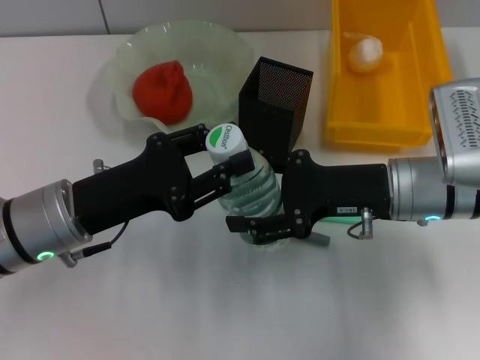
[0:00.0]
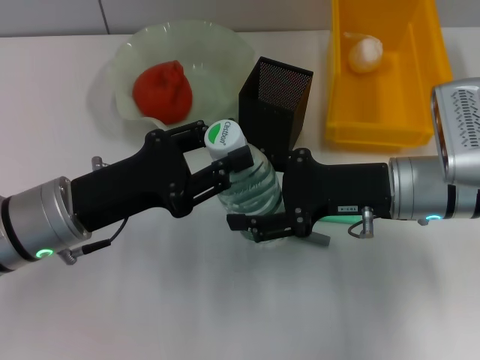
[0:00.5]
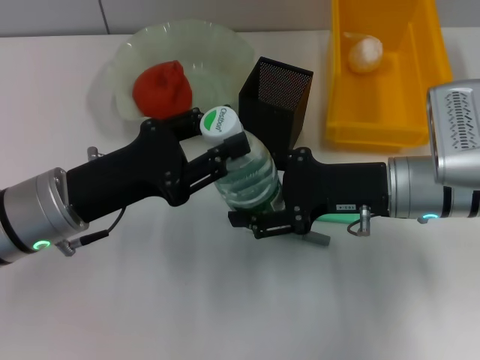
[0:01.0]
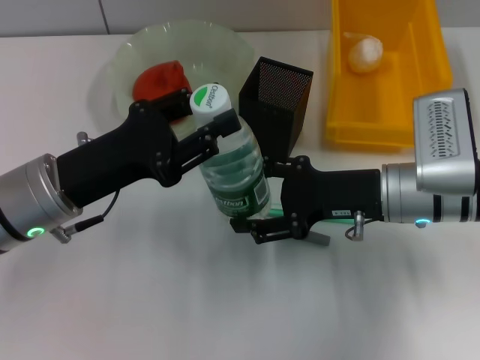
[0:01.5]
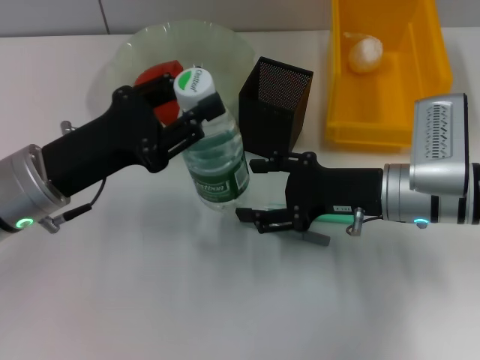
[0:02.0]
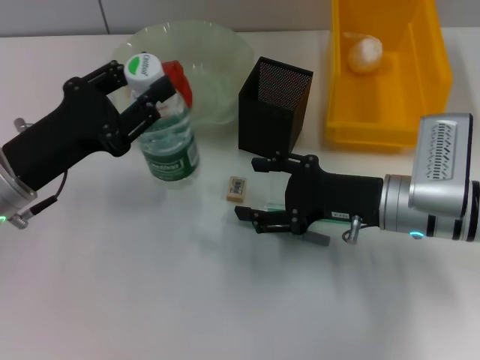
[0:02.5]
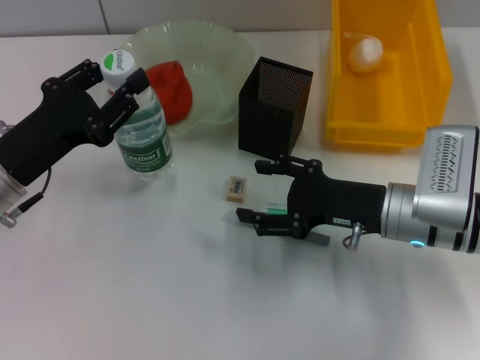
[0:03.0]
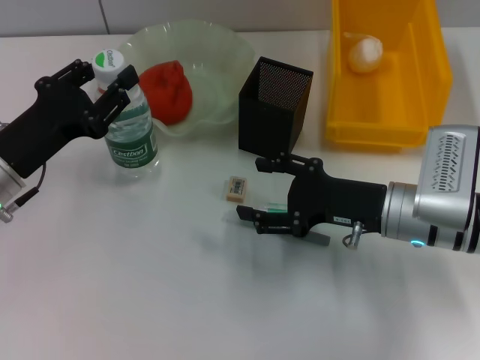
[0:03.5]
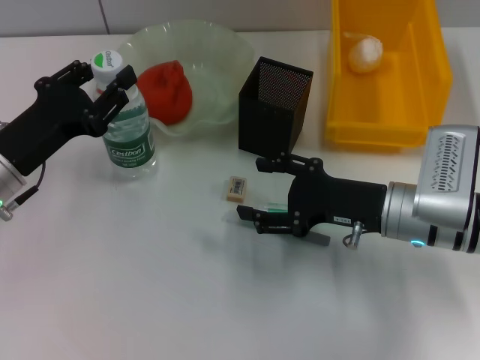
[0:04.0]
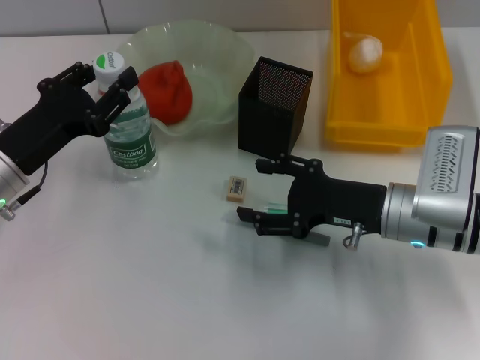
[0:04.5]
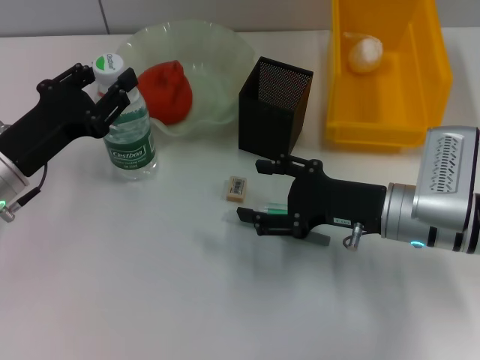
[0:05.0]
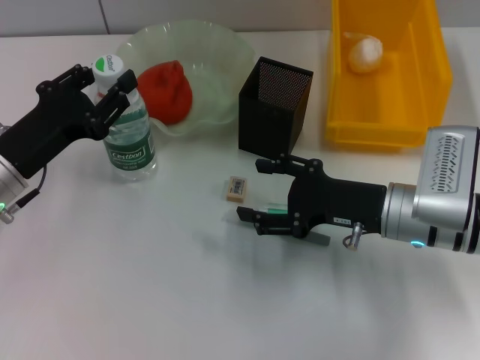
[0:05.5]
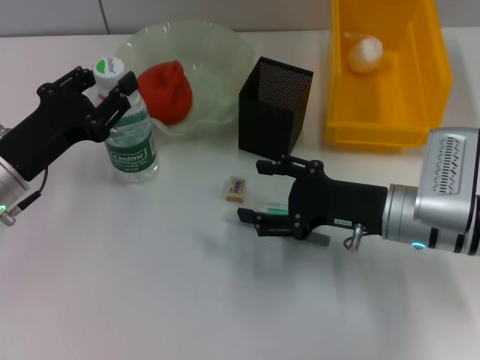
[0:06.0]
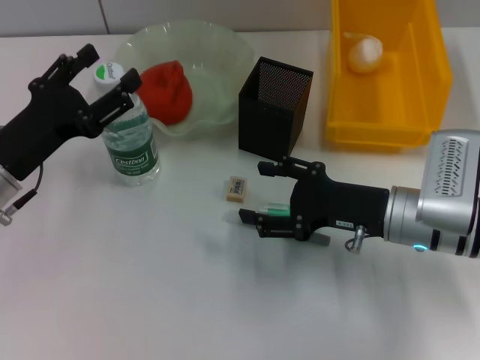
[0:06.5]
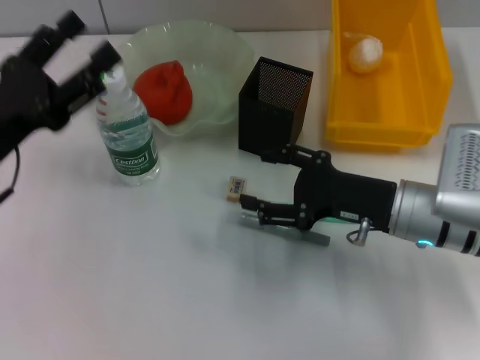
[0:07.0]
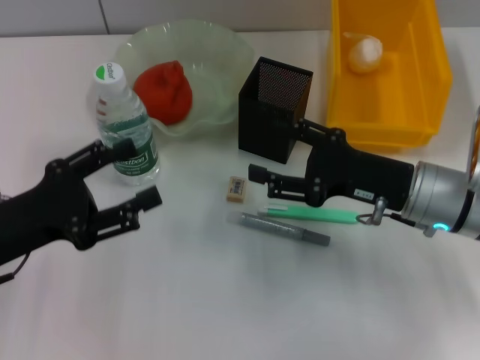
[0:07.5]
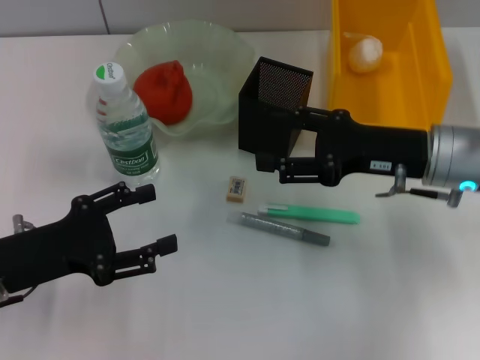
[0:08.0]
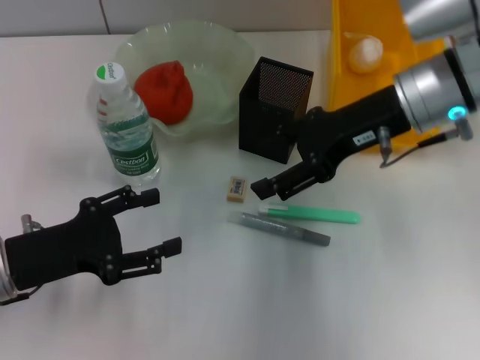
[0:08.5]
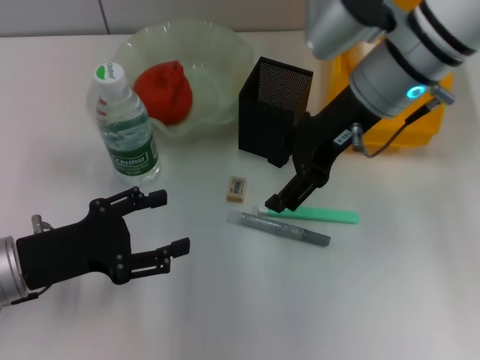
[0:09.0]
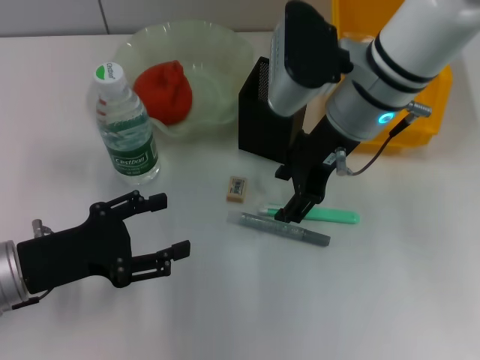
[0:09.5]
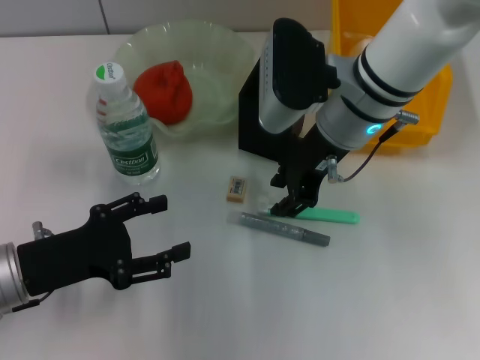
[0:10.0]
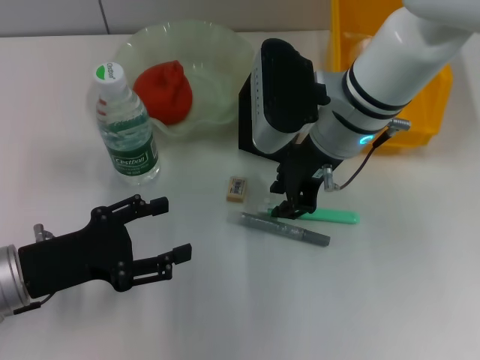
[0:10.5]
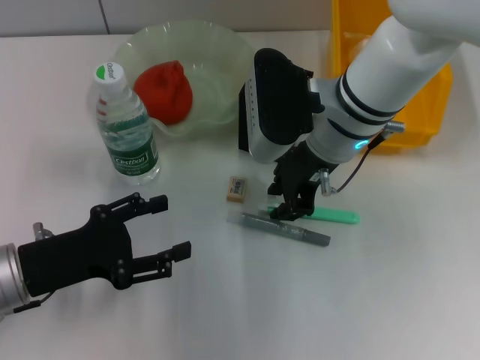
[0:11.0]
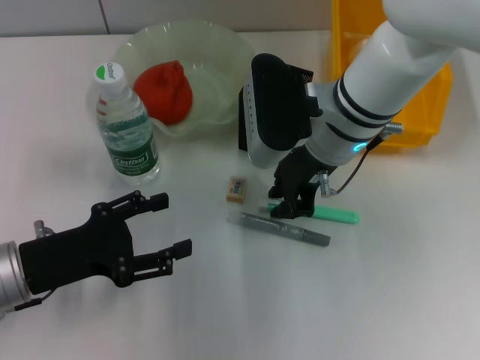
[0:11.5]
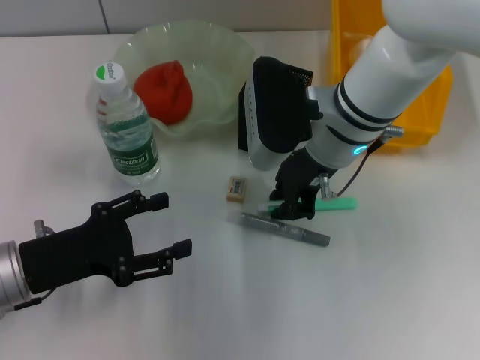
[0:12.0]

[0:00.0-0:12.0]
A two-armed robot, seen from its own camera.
Step, 0:02.0 to 0:06.5: Place the water bottle on the table with the left hand.
0:02.0 to 0:04.0: The left gripper moves roughly 5 cm.
0:04.0 to 0:06.0: Both grippers stay put.
0:06.0 to 0:08.0: The right gripper shifts about 5 cm upward; the left gripper heads backward, covering approximately 5 cm, and opens up.
0:08.0 to 0:10.0: The right gripper shifts about 15 cm to the left and forward, and closes its fingers.
0:10.0 to 0:12.0: The right gripper closes its fingers.

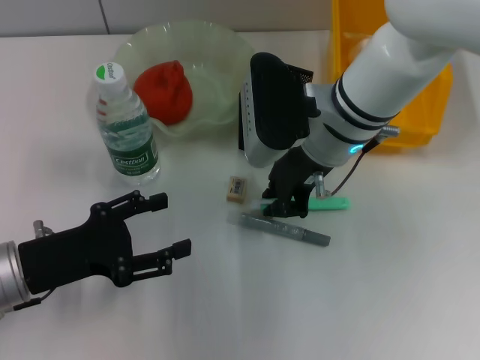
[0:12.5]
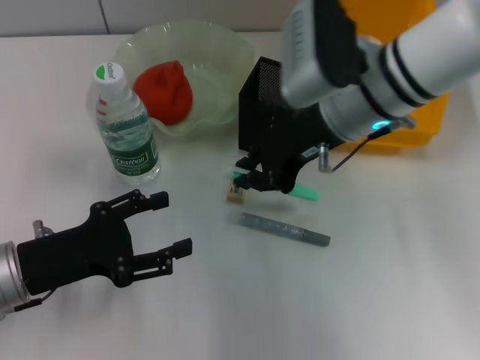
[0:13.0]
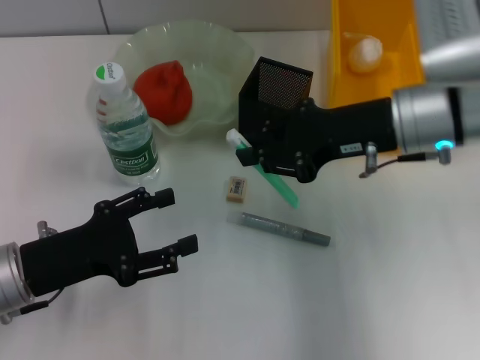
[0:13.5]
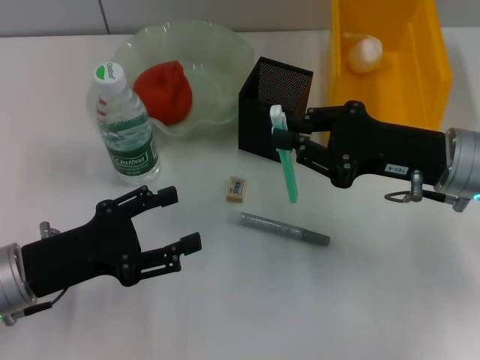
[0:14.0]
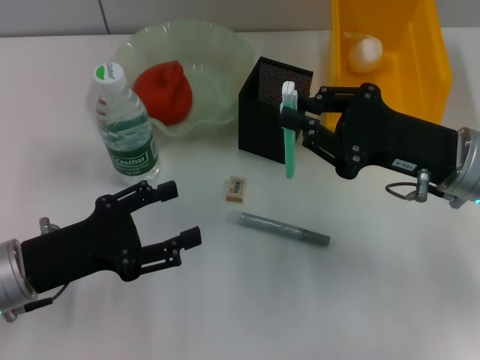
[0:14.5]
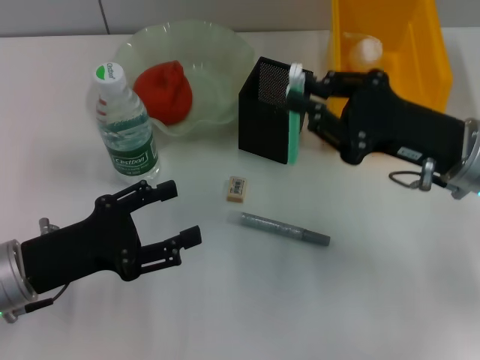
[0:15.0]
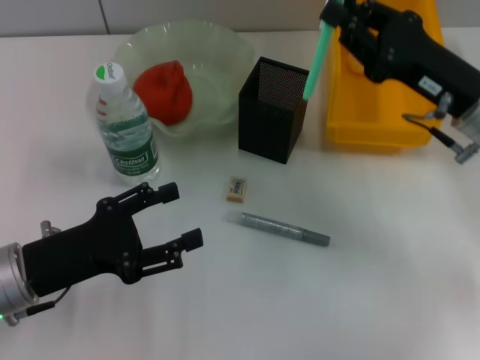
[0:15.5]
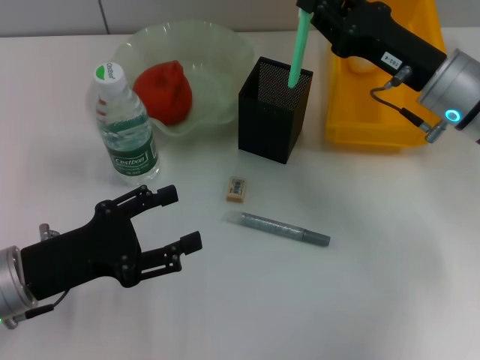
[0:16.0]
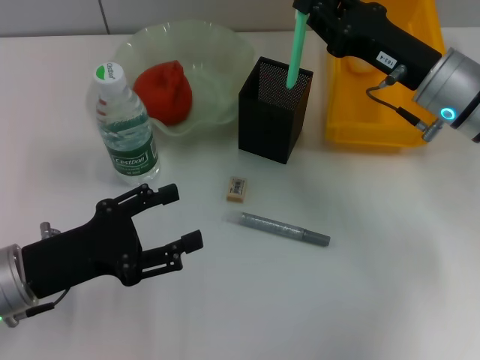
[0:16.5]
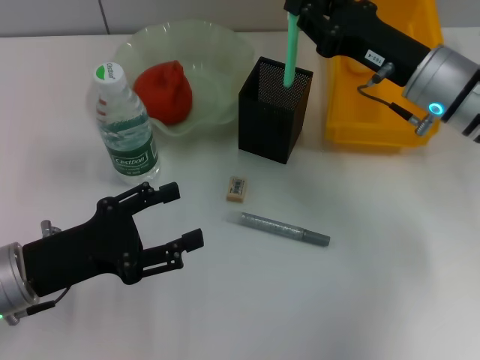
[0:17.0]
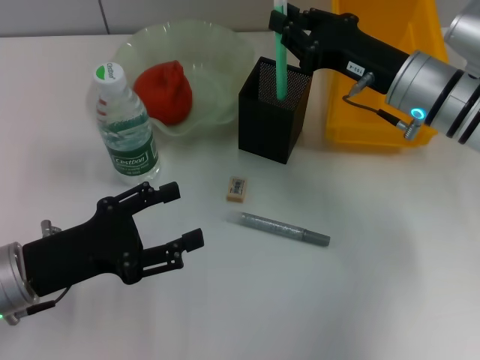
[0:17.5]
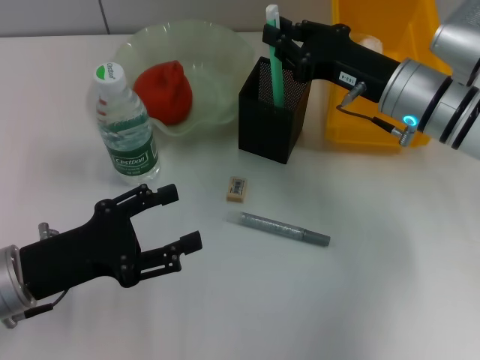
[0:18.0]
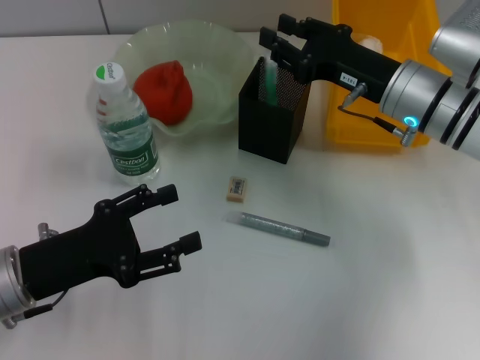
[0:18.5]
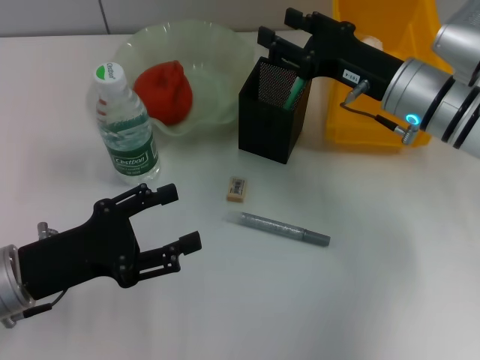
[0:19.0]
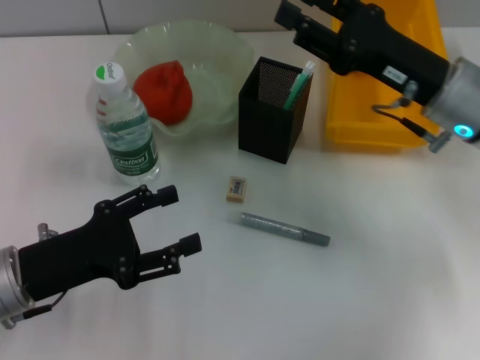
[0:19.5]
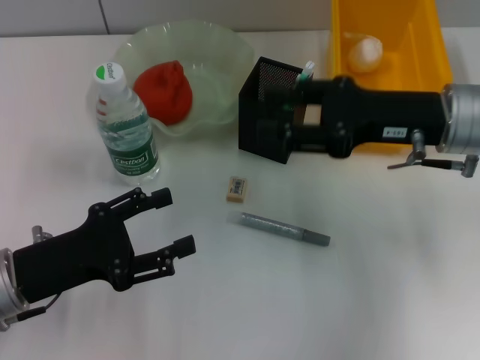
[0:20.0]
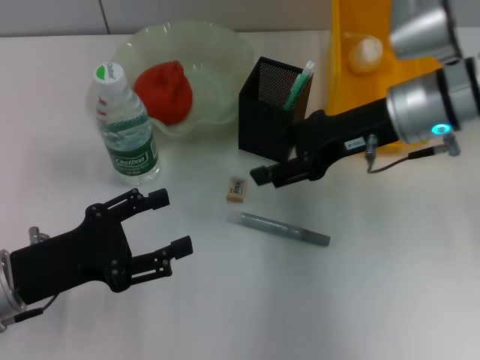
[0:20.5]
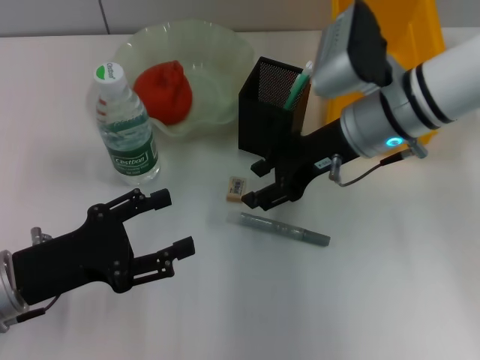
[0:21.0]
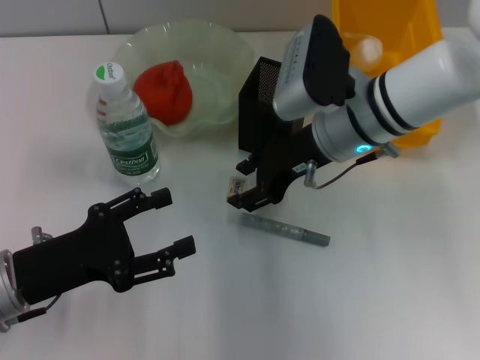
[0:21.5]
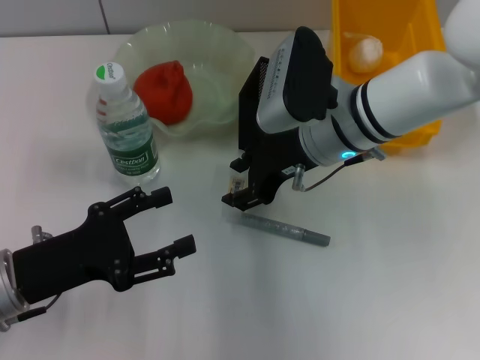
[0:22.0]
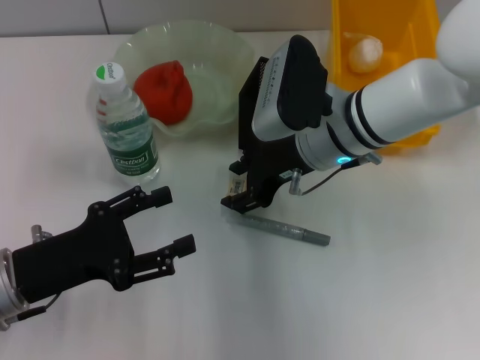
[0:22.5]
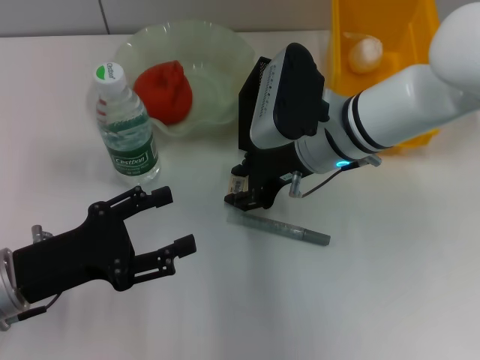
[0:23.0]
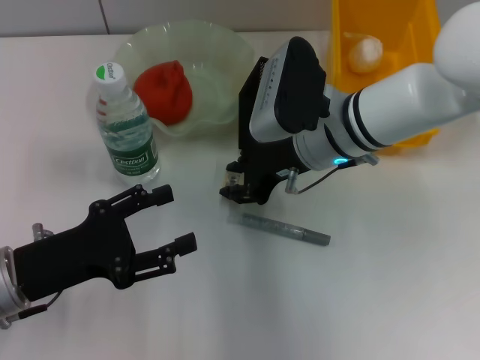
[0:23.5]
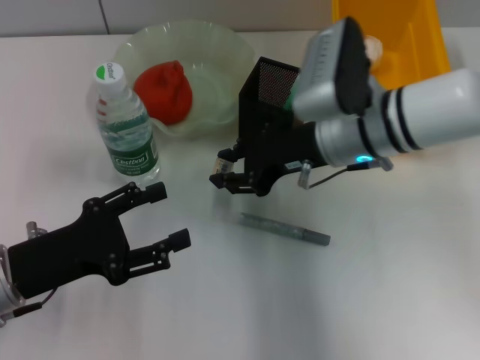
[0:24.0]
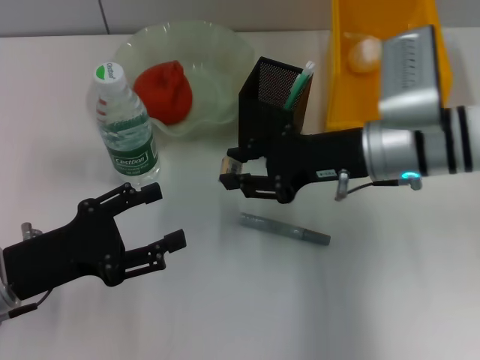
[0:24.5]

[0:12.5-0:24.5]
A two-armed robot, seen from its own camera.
Step, 0:12.5 to 0:18.5: Place the blue utility knife into the pen holder with the right hand.
Step, 0:19.0 to 0:23.0: Grab the eraser with the right hand.
0:12.5 to 0:14.5: The right gripper moves to the right and backward, some 15 cm.
0:14.5 to 0:16.5: The right gripper shifts about 5 cm forward.
0:16.5 to 0:18.5: The grippers stay close to where they were, moving slightly.
0:18.5 to 0:20.5: The right gripper opens up.
0:20.5 to 0:22.5: The right gripper shifts about 10 cm to the left.
0:22.5 to 0:24.5: The right gripper shifts roughly 5 cm to the right.

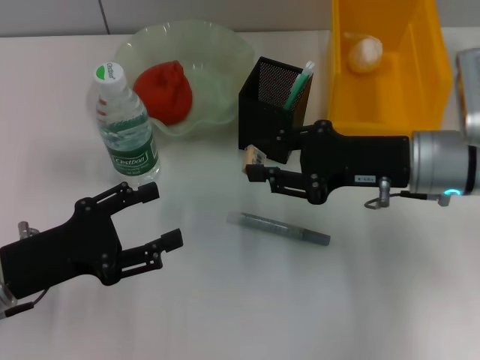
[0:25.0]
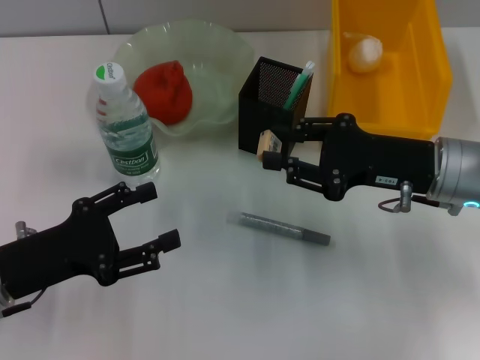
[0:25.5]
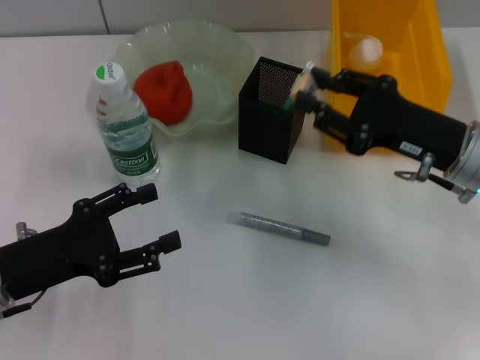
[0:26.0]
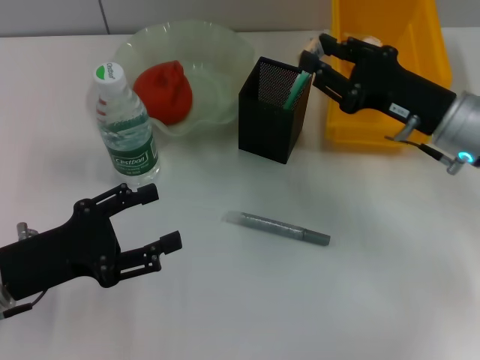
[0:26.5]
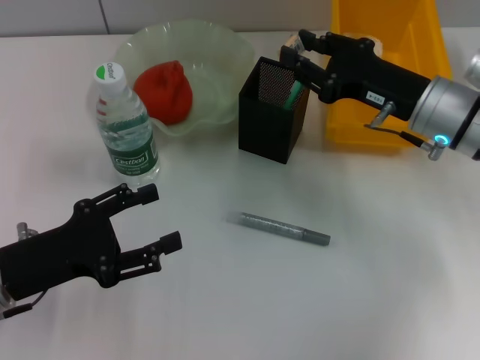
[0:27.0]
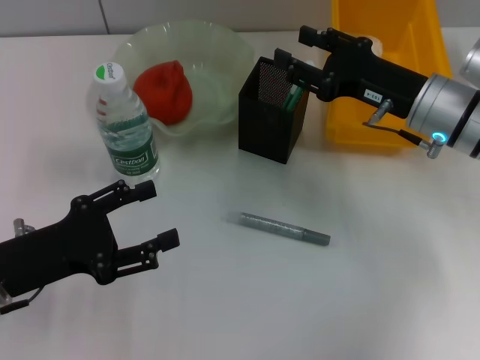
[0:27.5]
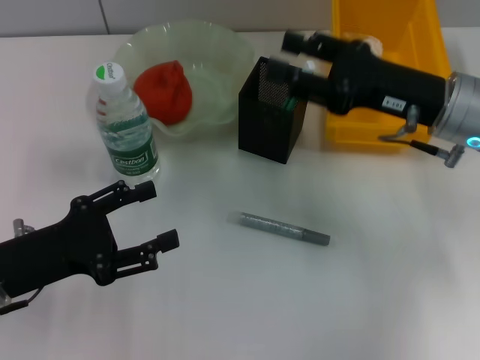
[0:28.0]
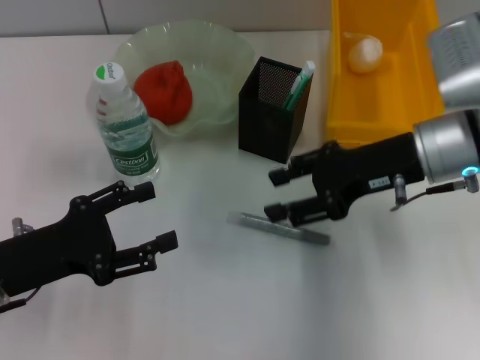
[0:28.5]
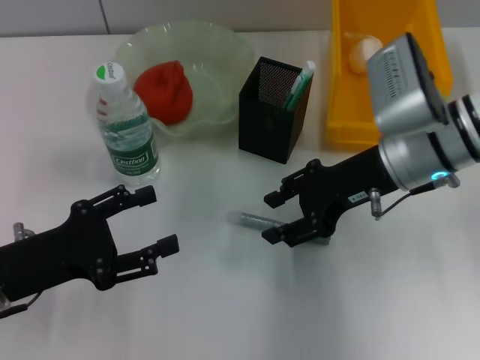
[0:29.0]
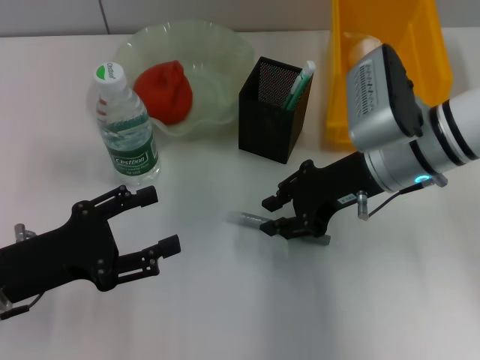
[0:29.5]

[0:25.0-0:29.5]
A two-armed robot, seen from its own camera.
Step, 0:25.0 to 0:27.5: Put the eraser into the pen holder with the right hand.
0:27.0 to 0:29.5: The right gripper shifts by roughly 5 cm.
